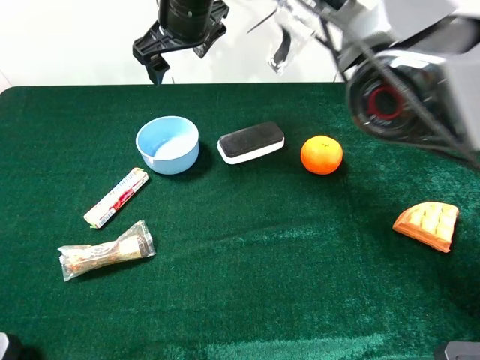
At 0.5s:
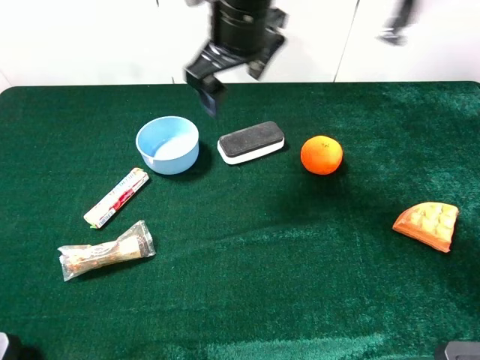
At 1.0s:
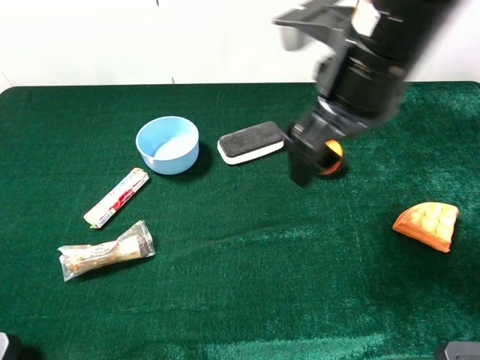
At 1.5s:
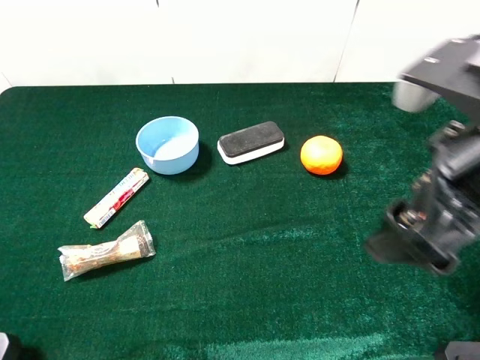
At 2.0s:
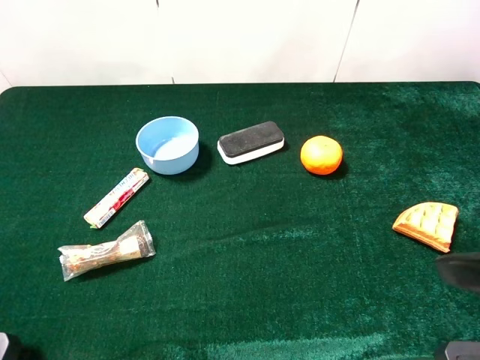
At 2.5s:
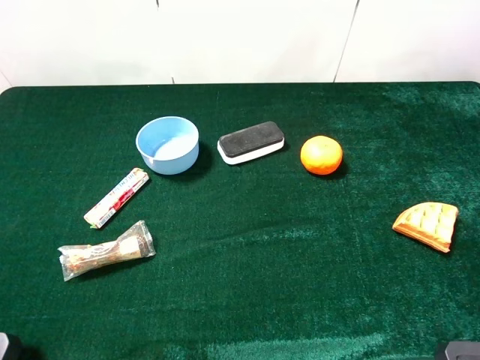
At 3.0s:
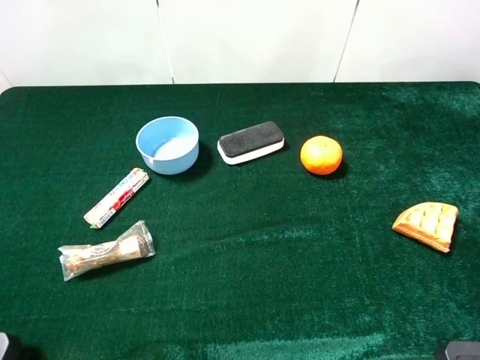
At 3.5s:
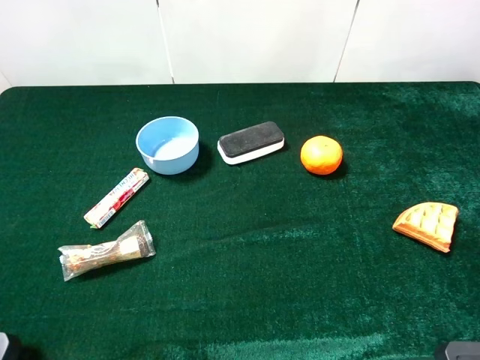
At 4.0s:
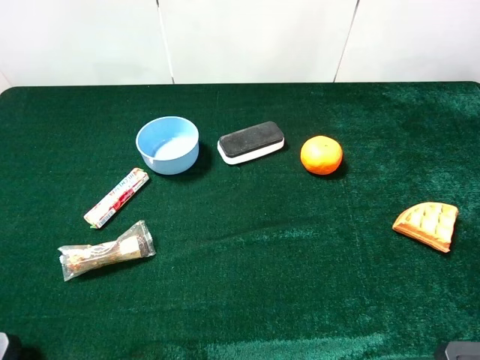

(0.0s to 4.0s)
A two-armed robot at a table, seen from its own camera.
Task of the whole recording: the gripper move the object.
0.0s - 2.0s: The right gripper travels to the right and backward by some 50 cm.
